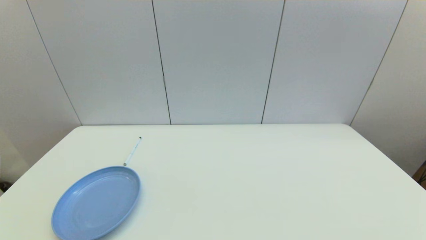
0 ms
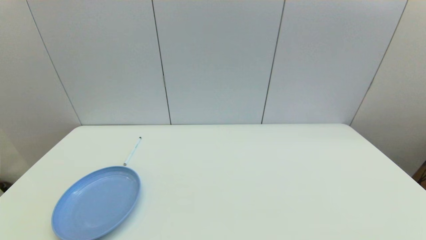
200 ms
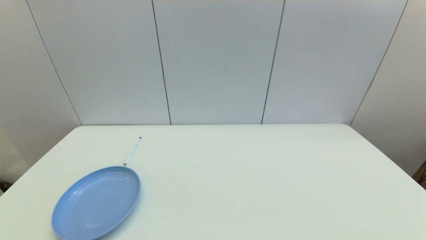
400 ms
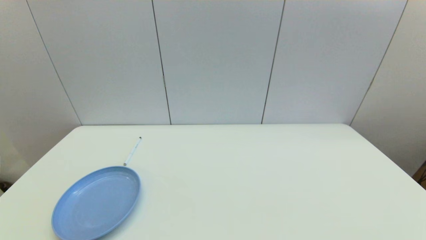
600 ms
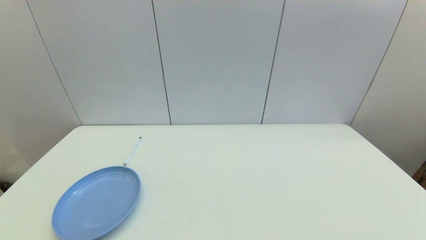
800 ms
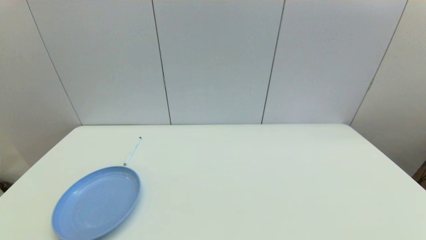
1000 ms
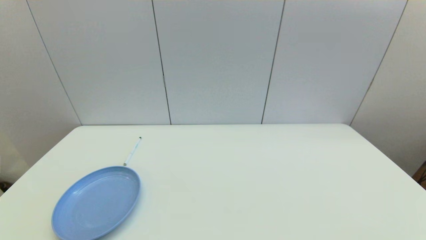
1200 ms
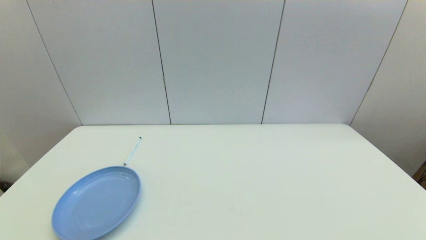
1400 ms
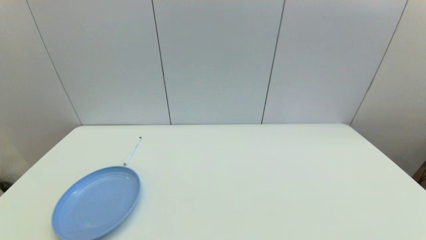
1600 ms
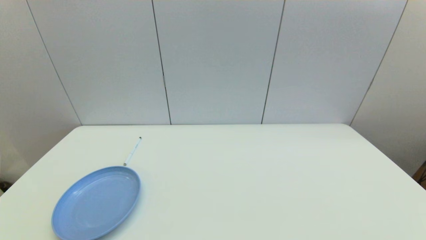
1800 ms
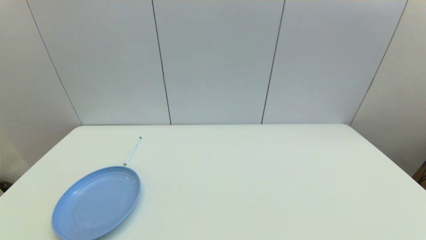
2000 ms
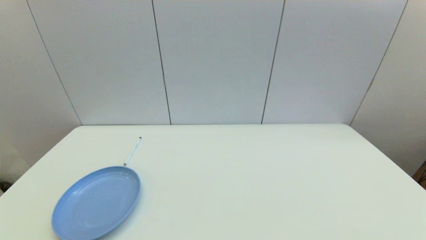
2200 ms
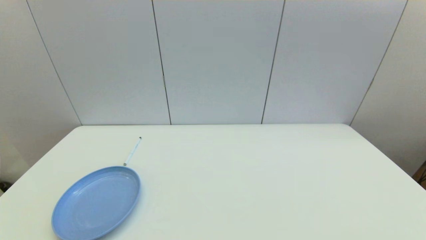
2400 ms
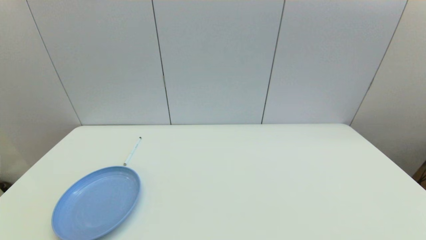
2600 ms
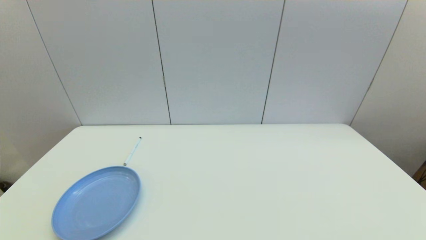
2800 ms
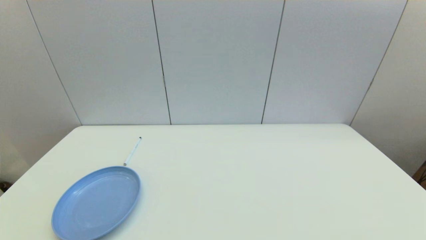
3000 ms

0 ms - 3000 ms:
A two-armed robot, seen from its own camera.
Task of the whole recording: put the pen in the designated position.
1600 ms - 3000 ms: The two grippers keep their place.
